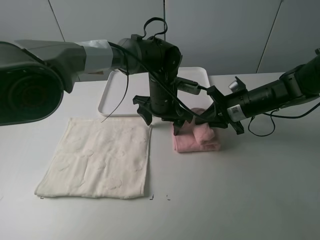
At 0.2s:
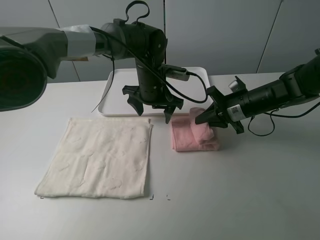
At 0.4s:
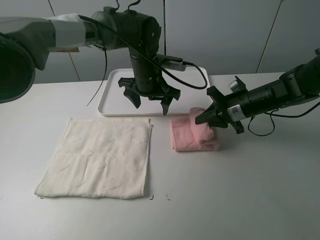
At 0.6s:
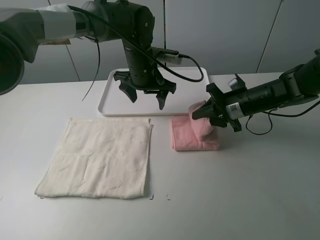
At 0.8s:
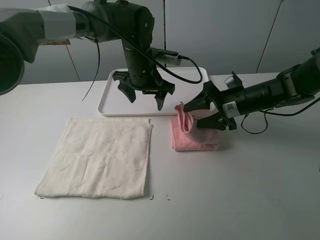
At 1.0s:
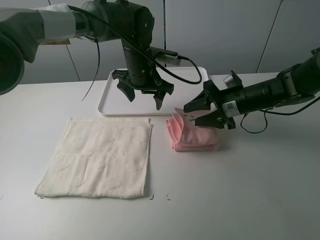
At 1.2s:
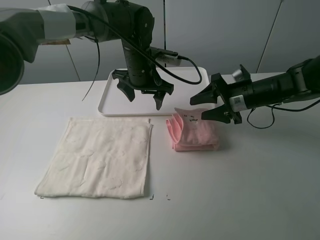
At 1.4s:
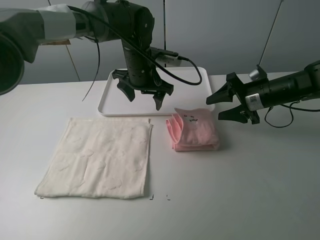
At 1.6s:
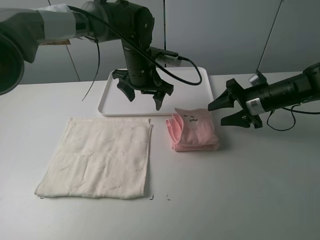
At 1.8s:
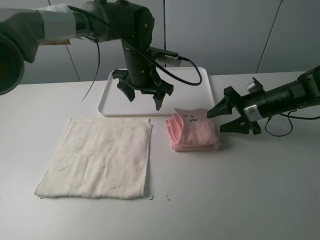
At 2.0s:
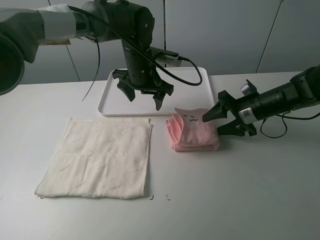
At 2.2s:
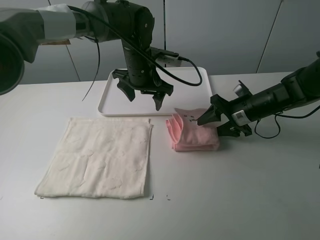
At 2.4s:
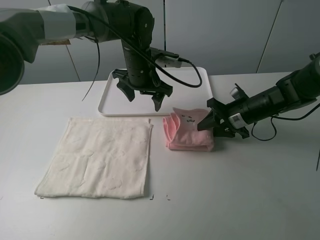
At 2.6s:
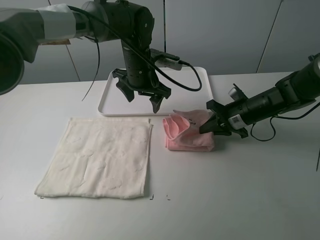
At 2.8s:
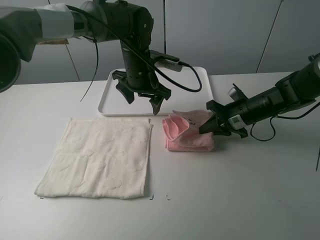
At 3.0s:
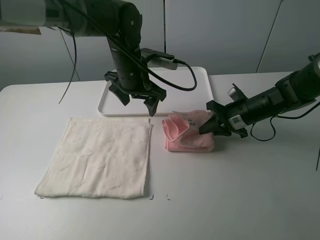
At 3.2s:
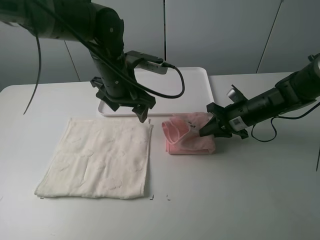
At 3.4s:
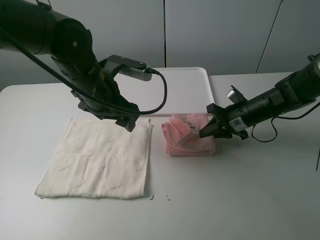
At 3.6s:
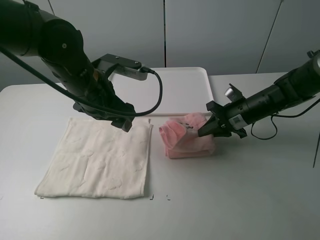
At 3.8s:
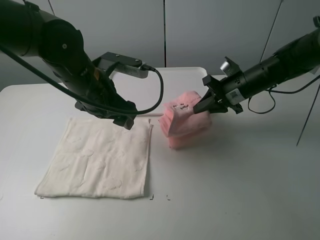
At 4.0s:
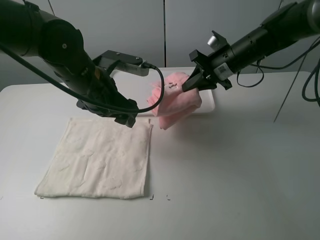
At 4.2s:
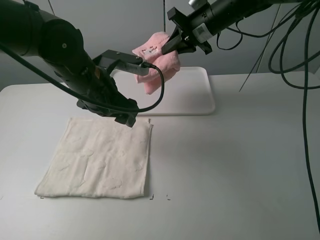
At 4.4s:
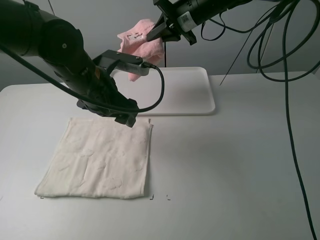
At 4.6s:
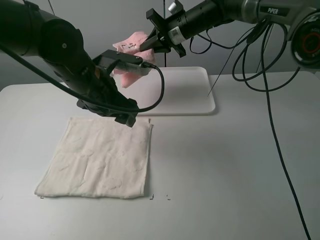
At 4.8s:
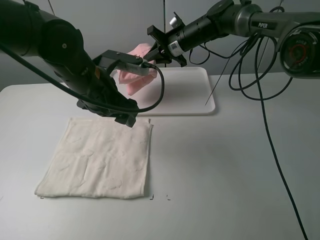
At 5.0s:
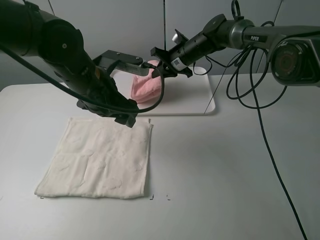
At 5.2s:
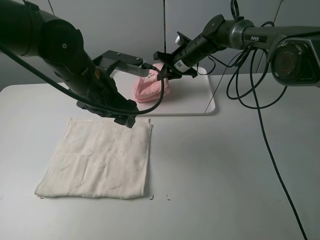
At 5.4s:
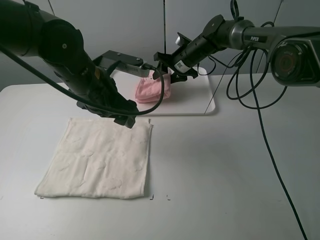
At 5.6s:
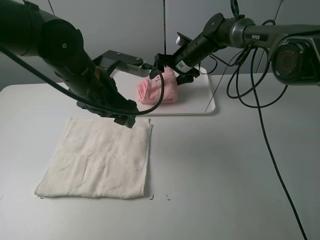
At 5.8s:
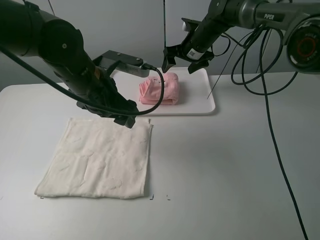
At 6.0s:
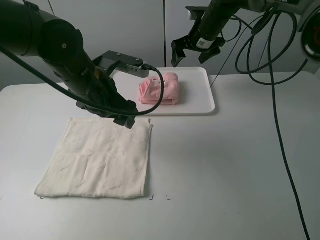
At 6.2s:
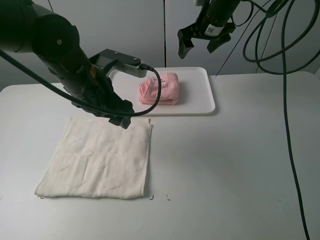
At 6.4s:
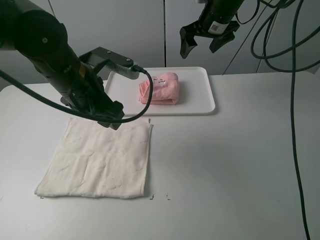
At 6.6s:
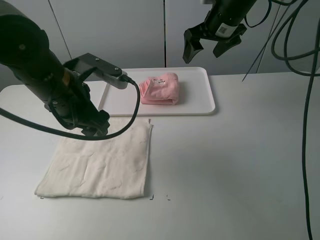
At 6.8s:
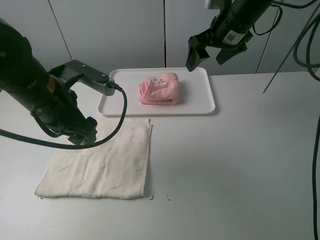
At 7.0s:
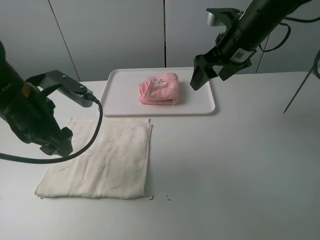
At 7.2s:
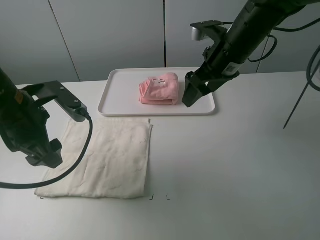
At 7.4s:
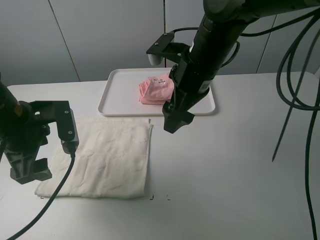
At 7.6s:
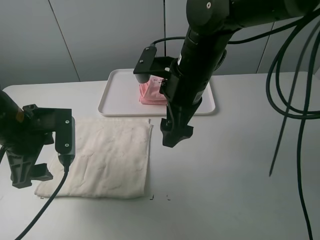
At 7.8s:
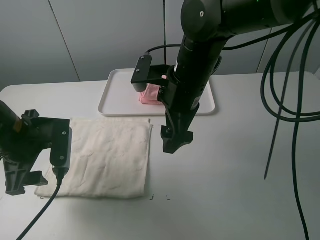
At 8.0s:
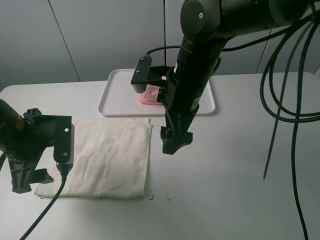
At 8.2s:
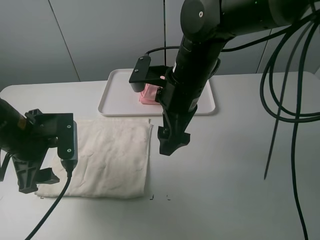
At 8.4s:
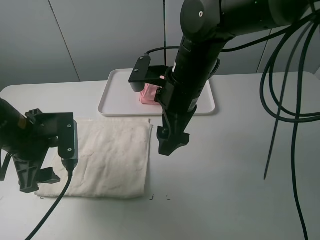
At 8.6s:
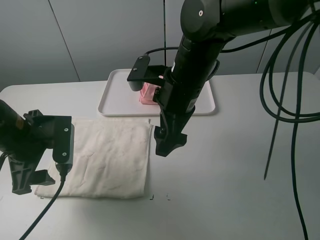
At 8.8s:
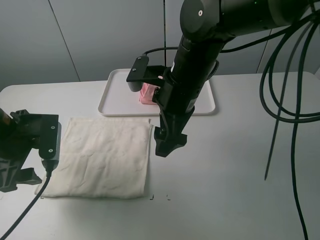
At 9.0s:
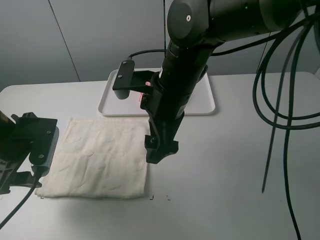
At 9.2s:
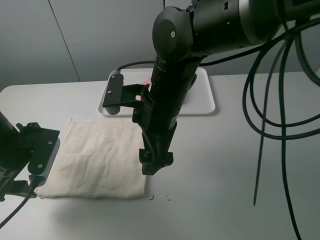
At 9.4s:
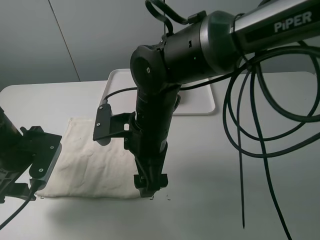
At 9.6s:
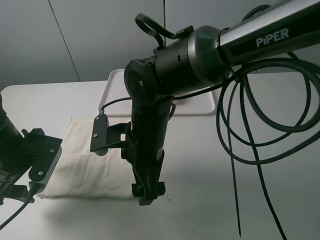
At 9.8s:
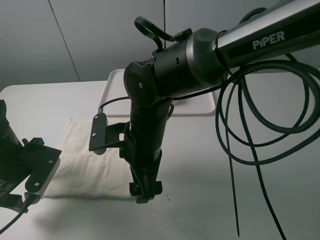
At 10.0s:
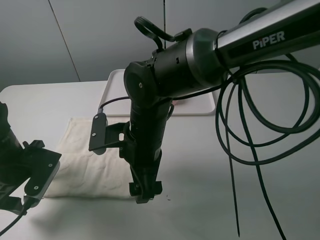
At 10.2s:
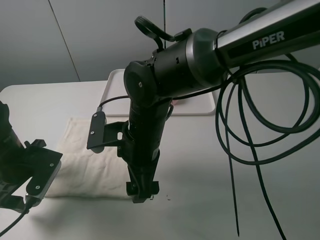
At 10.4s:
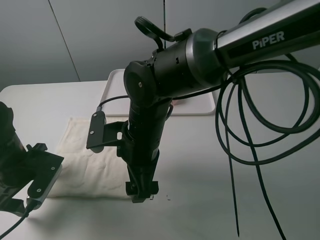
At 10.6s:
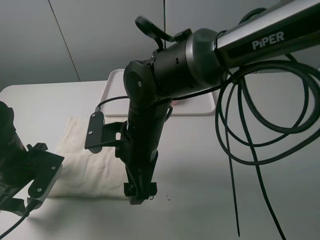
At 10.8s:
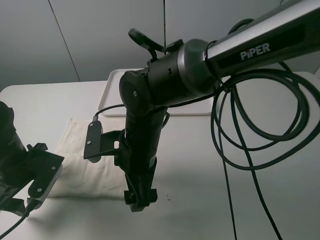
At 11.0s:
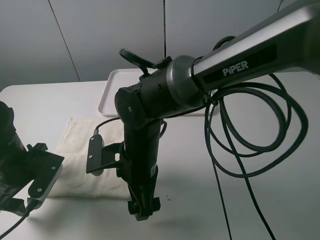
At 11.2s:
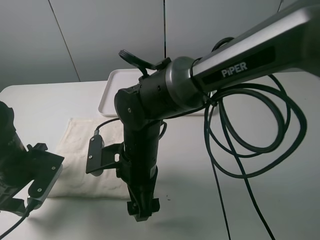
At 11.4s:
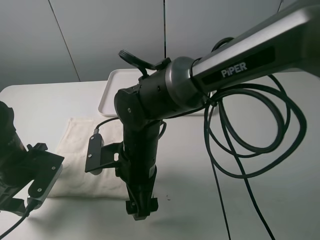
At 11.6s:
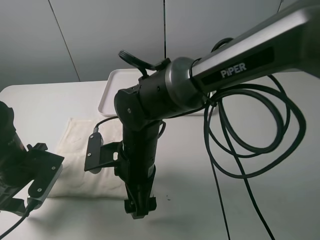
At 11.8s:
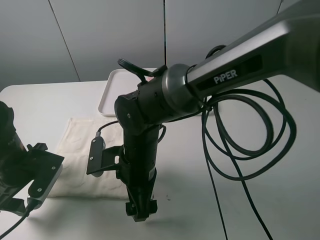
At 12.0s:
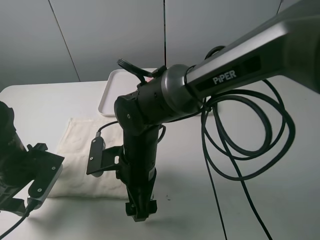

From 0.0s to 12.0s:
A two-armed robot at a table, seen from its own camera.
Task of the whole recording: fold one of the towels by two grippers and place it on the tray,then fold another towel by two grippers and place it on the folded towel.
Step, from 1.4s to 2.6s: Grasp the pink towel with the right gripper.
Step, from 2.8s to 5.6s: Move the pink towel to the plate with the right gripper.
From 0.0s to 1.6s: The right gripper opens up. Meanwhile the left gripper is displaced upward by approximately 5 cm.
From 1.6s to 3.0s: The left gripper moves some 5 cm. Meanwhile the right gripper closes up.
From 3.0s to 4.4s: The right gripper moves upward, forward and to the left, about 25 cm; the left gripper travels backward and to the left by some 10 cm.
From 4.4s to 6.0s: The right gripper reaches some 15 cm downward, then returns, and opens up.
From 6.0s to 7.6s: The left gripper heads to the left and backward, covering roughly 15 cm. Meanwhile the right gripper shifts about 25 cm backward.
From 9.0s to 10.4s: The grippers both shift downward by approximately 5 cm.
From 10.4s to 12.0s: The right gripper moves some 5 cm.

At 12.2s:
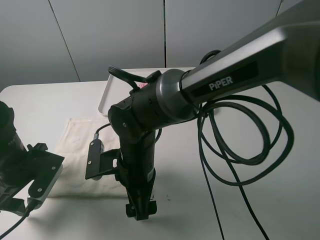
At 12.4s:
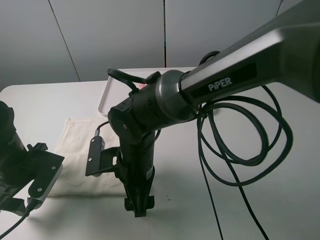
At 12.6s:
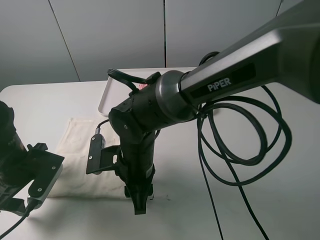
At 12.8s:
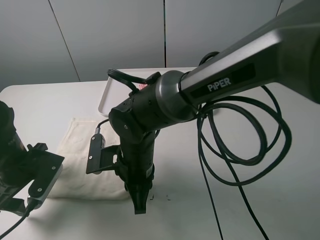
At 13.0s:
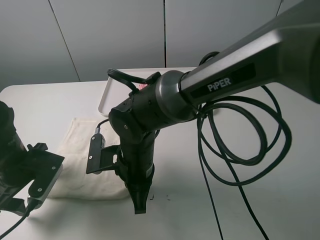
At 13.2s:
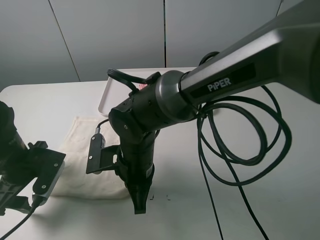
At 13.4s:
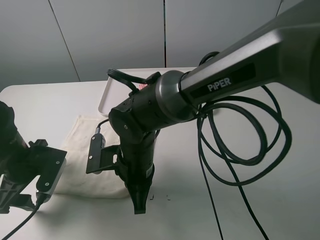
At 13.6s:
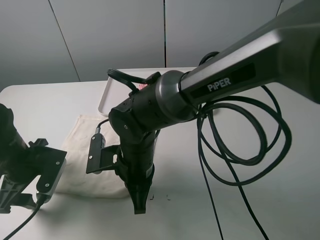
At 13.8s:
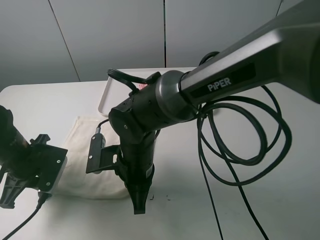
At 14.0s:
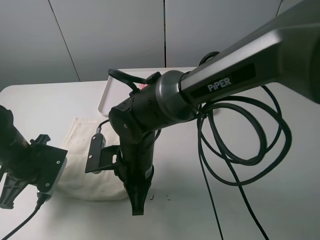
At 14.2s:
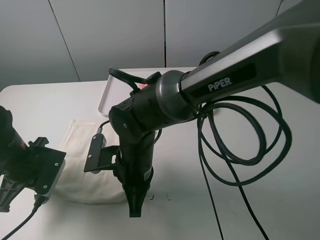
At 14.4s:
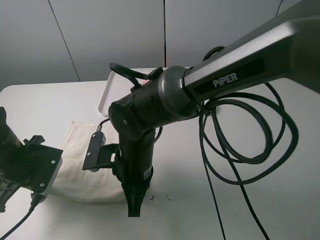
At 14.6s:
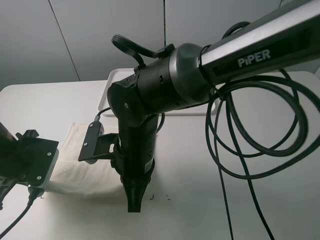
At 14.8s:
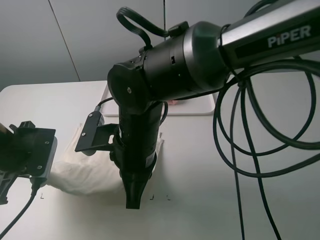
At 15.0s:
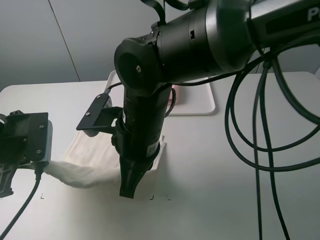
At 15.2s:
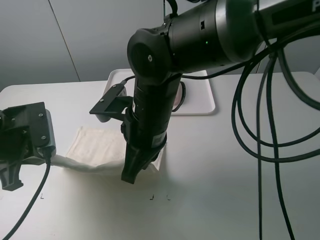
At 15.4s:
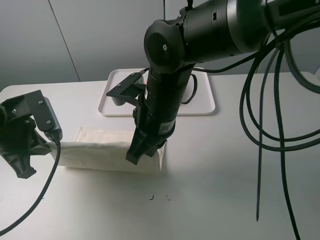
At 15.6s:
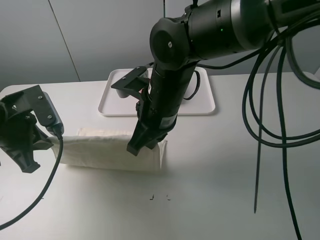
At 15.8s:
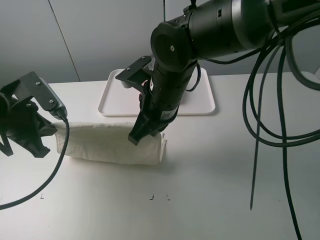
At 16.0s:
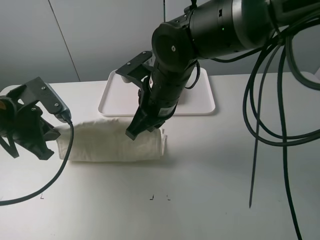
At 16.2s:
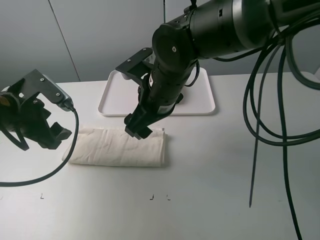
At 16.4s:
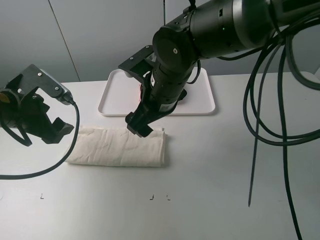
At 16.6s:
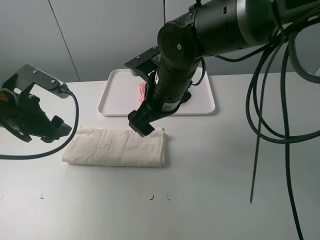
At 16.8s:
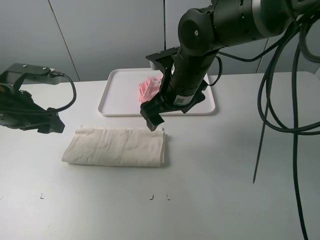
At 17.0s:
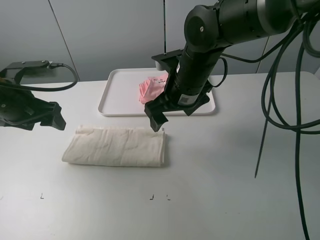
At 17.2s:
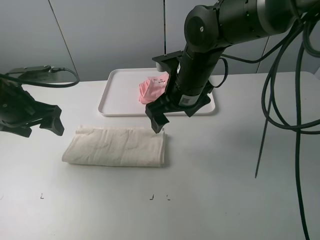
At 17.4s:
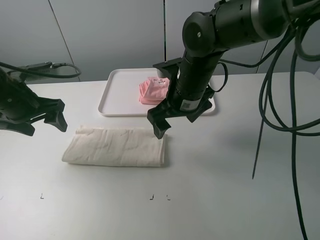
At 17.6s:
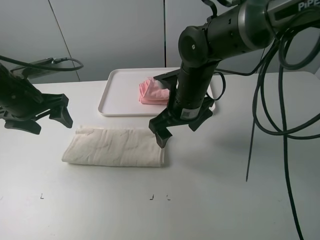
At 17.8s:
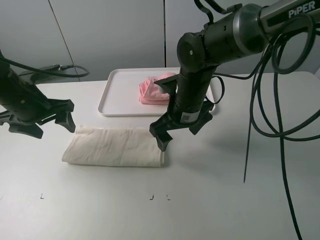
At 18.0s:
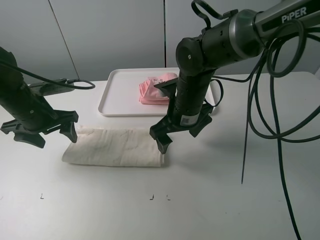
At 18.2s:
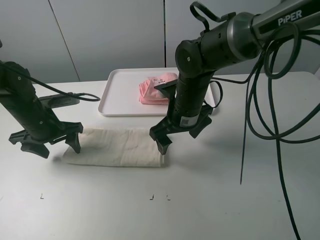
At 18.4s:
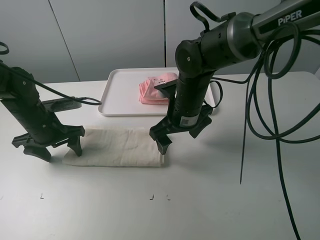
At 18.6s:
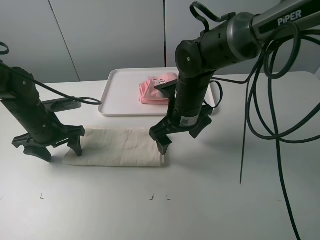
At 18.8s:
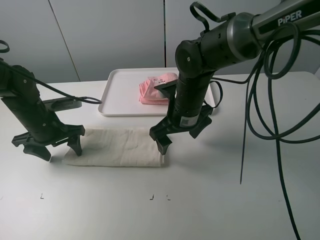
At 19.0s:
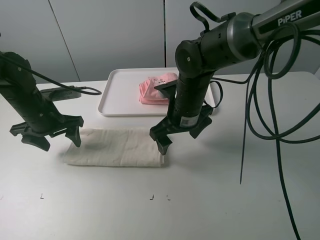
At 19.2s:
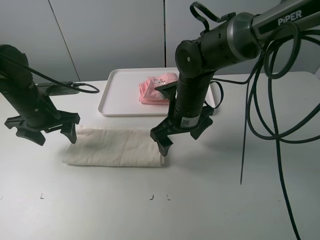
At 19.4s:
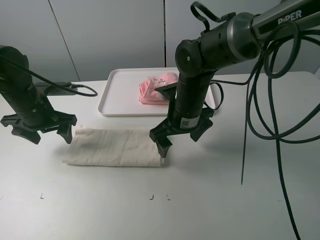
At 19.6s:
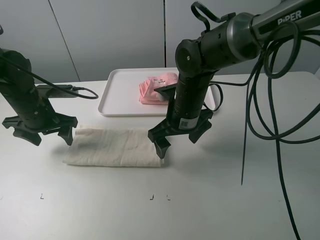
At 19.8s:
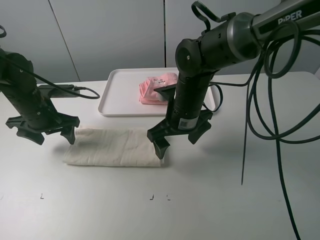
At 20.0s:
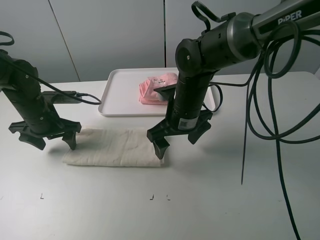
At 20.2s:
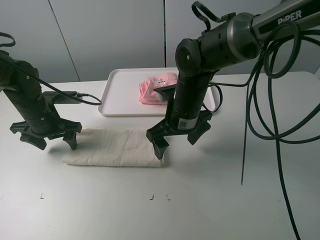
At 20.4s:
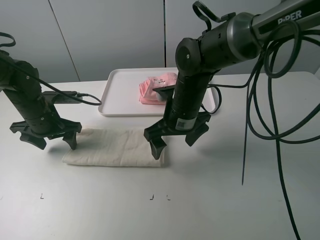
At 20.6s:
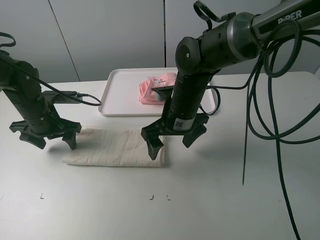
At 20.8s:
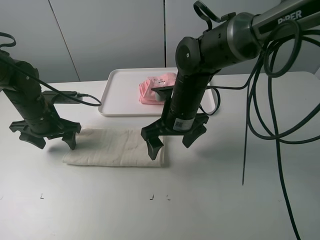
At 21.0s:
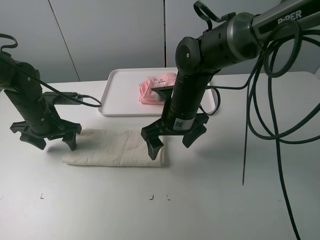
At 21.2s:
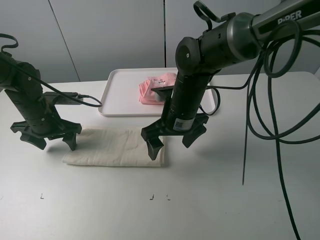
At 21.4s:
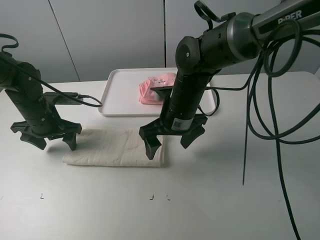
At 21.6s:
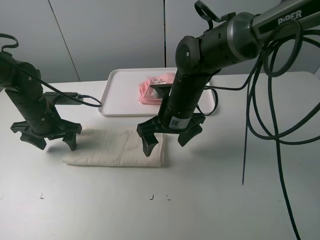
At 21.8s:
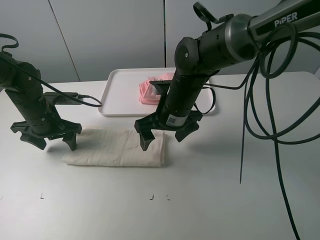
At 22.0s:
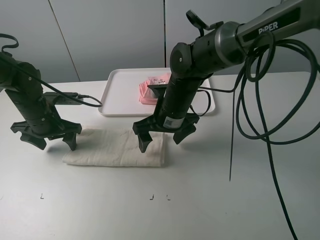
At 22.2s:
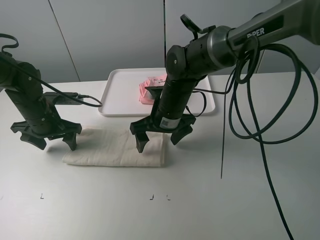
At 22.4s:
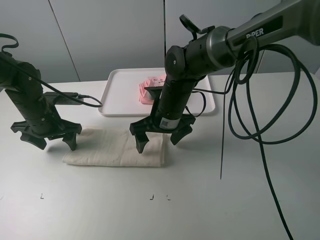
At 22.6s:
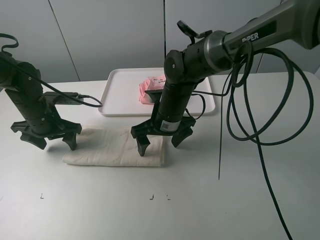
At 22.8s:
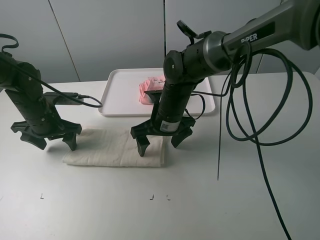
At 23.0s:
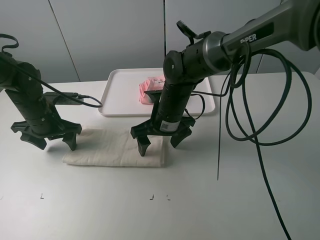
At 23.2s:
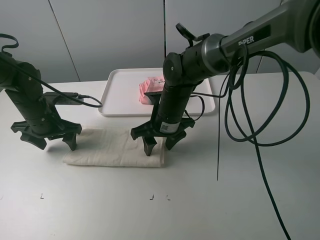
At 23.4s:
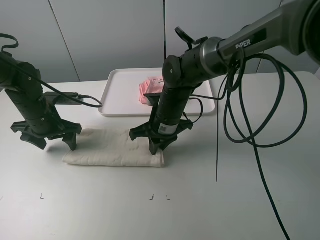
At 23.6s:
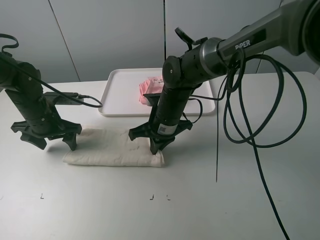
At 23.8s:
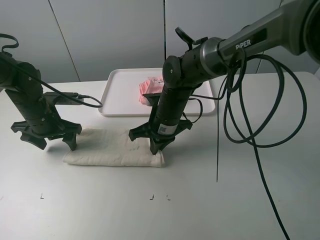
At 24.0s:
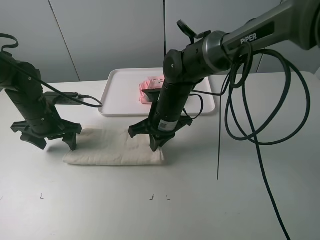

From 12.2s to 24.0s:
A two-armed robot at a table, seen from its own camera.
Task of the whole recording: fold one of the towels by two grippers and place it on the tray,then fold another towel by two grippers and place it on the folded towel.
Step, from 13.8s to 16.2s: Fold the white towel upwards with the left gripper.
Step, from 16.6s to 20.6s: Press the white towel with the left gripper.
Step, from 20.8s to 23.6s: Grasp the white towel with the right gripper.
From 12.2s to 13.6s: The right gripper closes.
From 13.6s to 15.2s: The two grippers go about 10 cm upward. The left gripper closes.
From 15.2s to 16.6s: The right gripper heads forward, covering some 5 cm, and opens; the left gripper opens up.
From 16.6s to 18.2s: The two grippers go some 5 cm downward.
From 18.2s to 22.6s: The grippers stay close to where they were, moving slightly.
From 22.6s to 24.0s: The right gripper closes its fingers.
